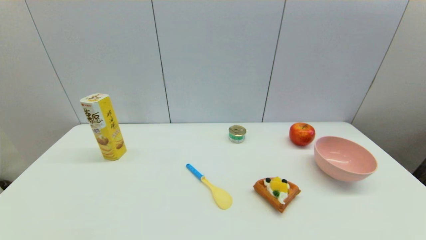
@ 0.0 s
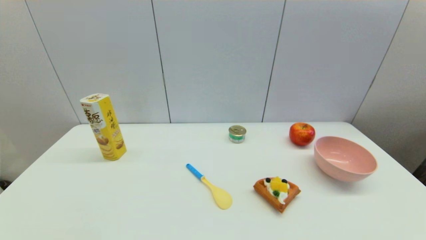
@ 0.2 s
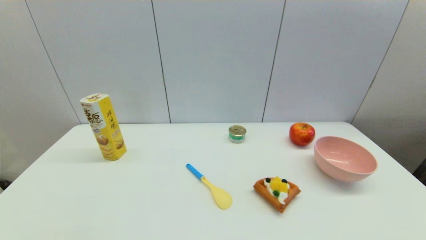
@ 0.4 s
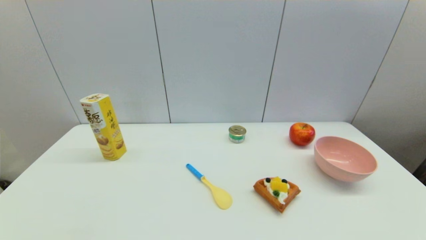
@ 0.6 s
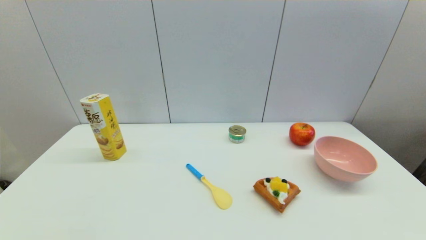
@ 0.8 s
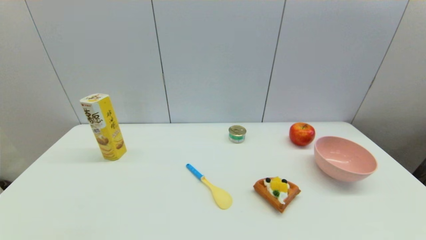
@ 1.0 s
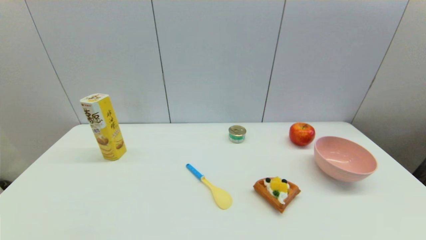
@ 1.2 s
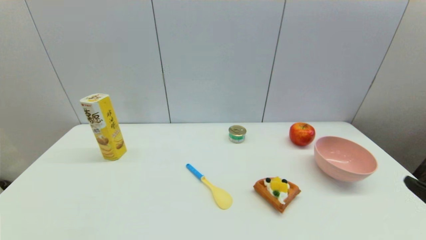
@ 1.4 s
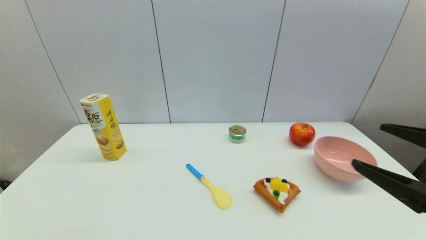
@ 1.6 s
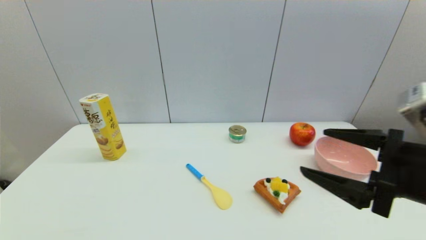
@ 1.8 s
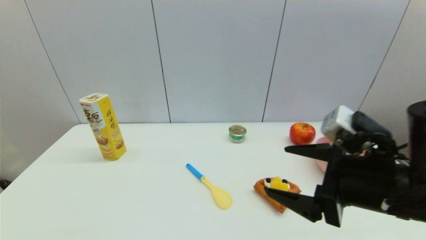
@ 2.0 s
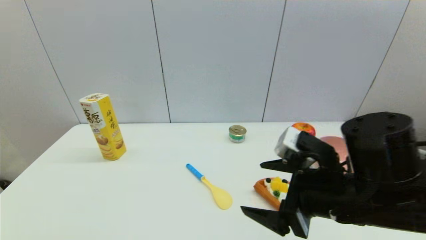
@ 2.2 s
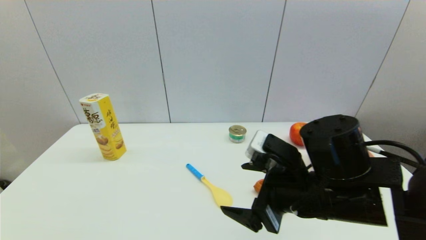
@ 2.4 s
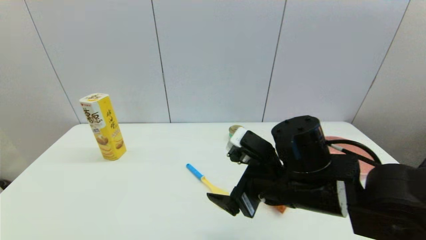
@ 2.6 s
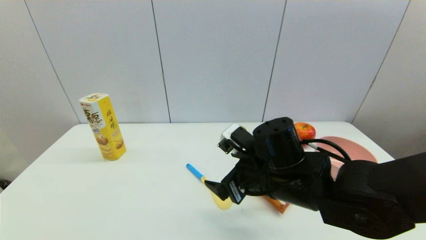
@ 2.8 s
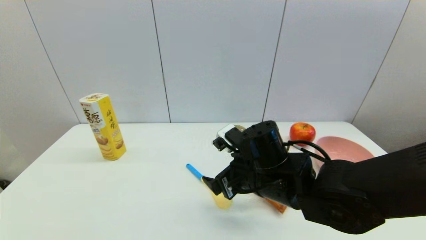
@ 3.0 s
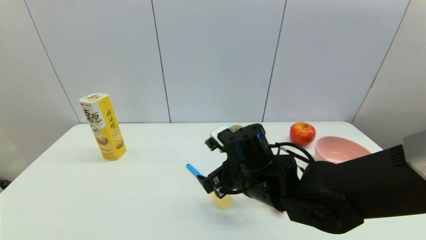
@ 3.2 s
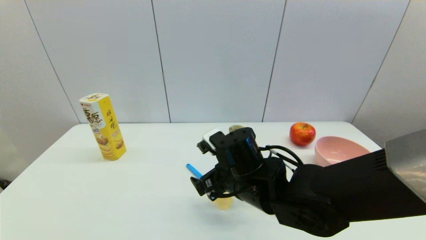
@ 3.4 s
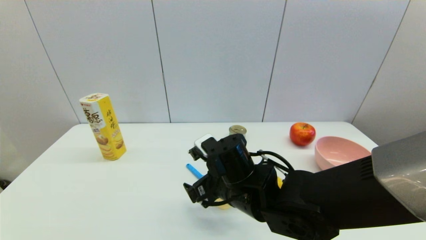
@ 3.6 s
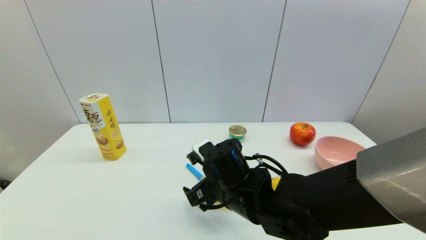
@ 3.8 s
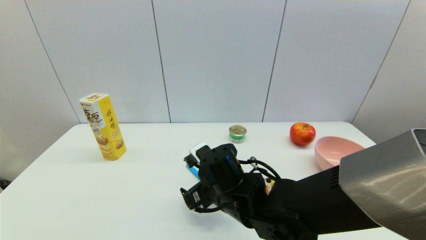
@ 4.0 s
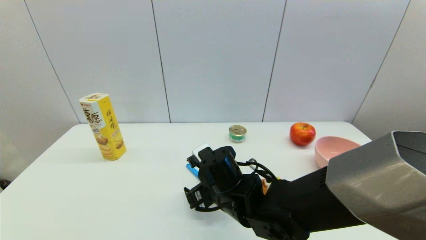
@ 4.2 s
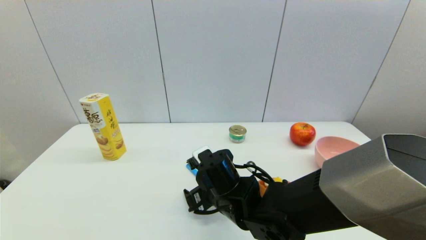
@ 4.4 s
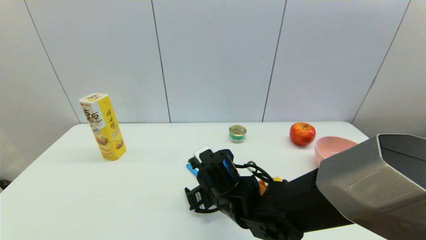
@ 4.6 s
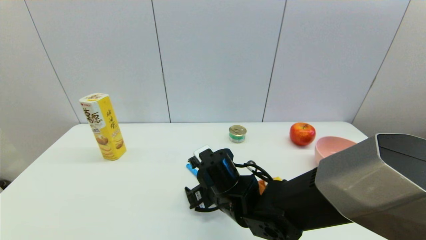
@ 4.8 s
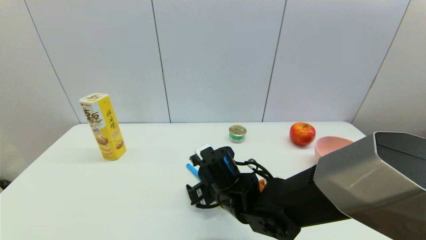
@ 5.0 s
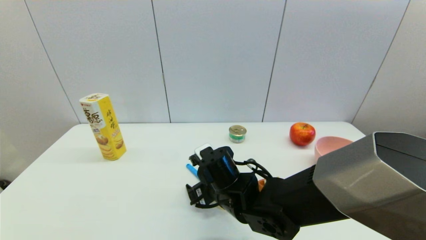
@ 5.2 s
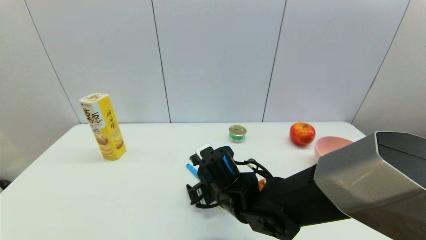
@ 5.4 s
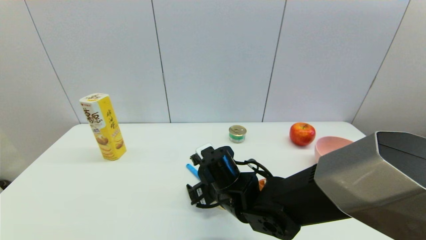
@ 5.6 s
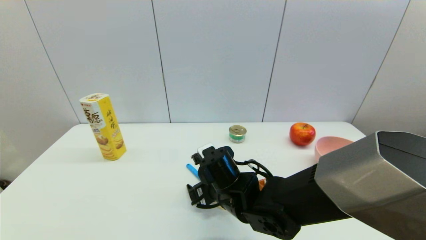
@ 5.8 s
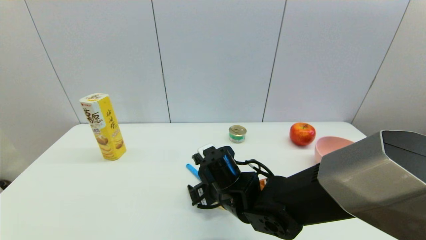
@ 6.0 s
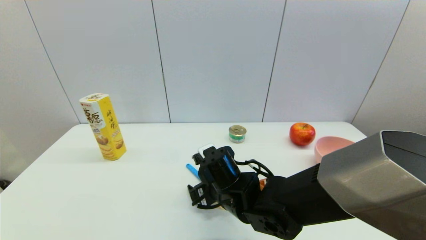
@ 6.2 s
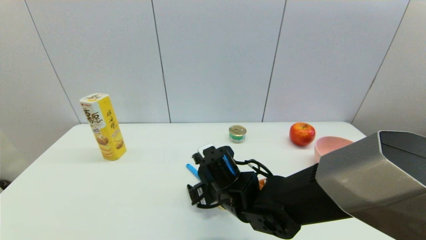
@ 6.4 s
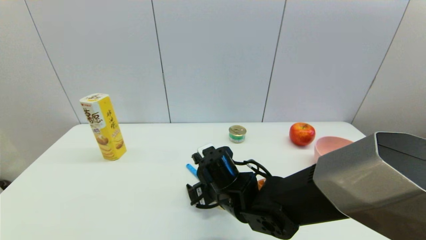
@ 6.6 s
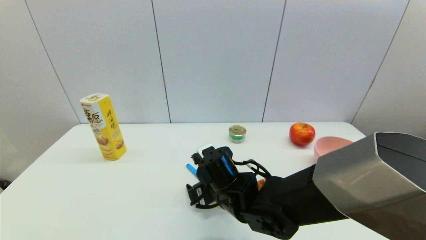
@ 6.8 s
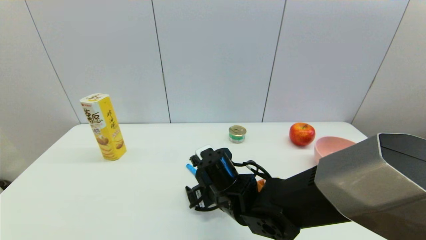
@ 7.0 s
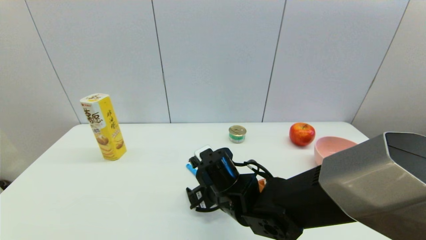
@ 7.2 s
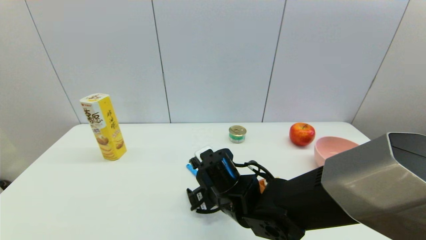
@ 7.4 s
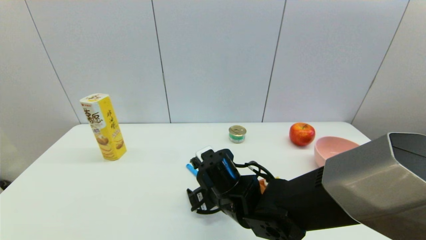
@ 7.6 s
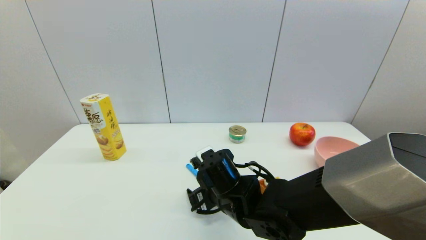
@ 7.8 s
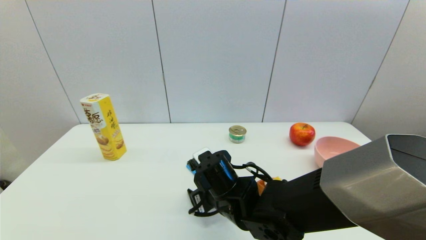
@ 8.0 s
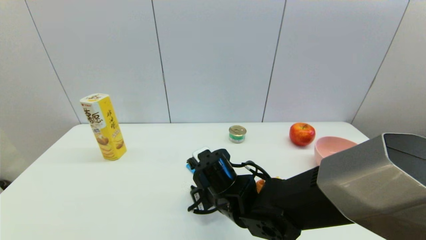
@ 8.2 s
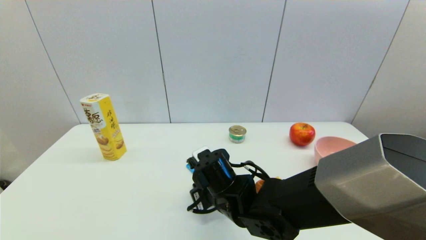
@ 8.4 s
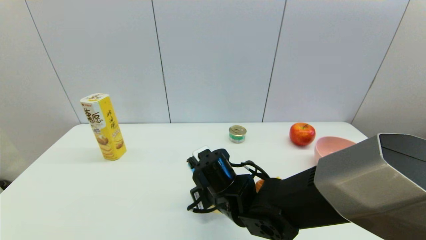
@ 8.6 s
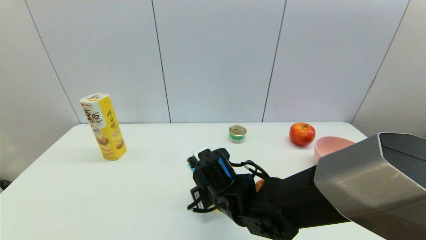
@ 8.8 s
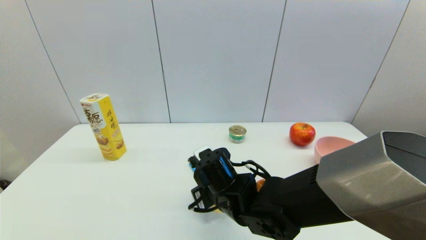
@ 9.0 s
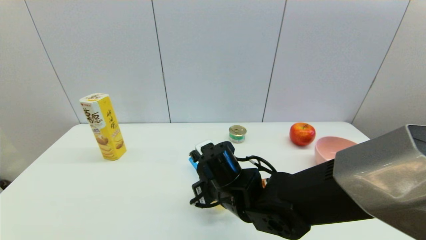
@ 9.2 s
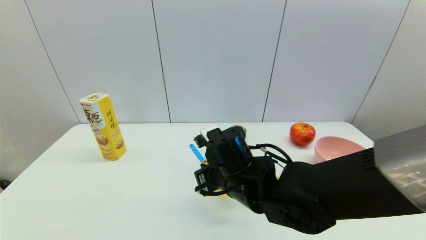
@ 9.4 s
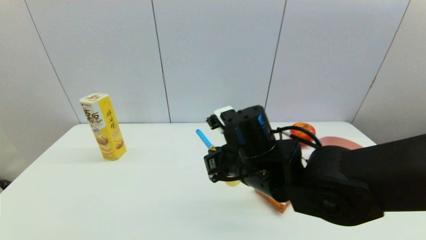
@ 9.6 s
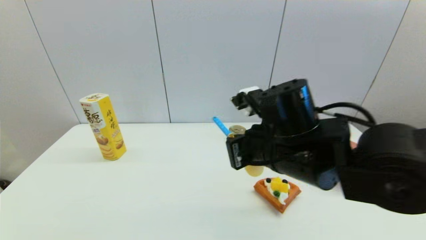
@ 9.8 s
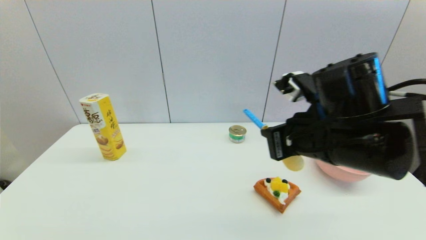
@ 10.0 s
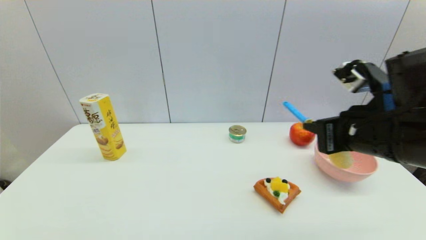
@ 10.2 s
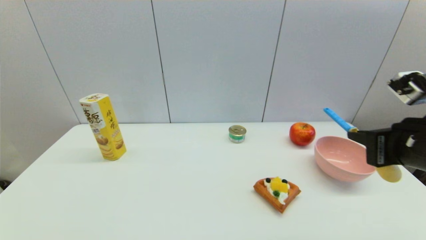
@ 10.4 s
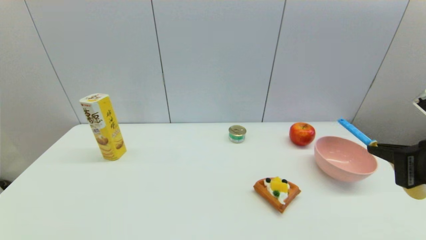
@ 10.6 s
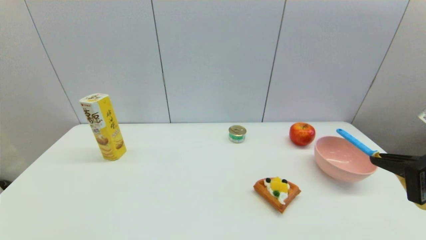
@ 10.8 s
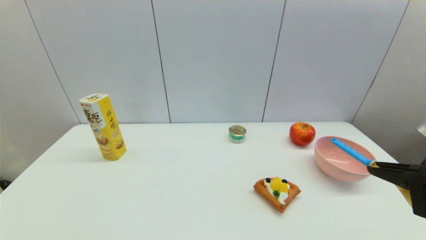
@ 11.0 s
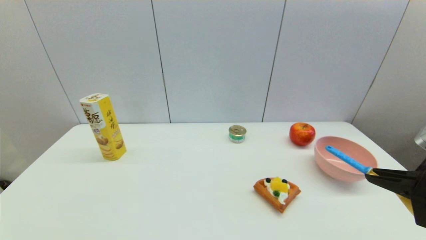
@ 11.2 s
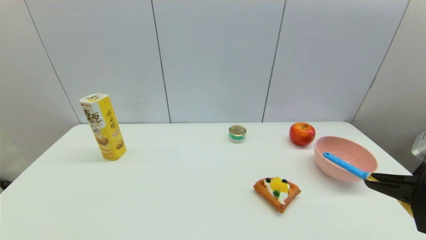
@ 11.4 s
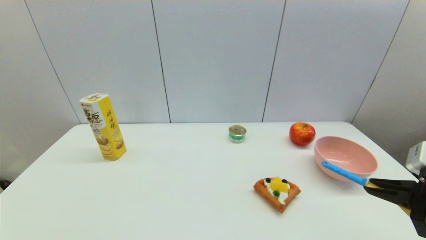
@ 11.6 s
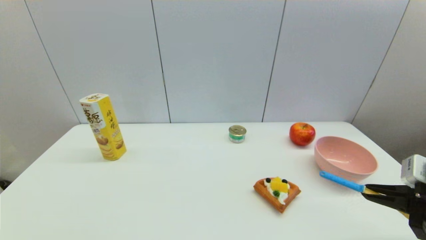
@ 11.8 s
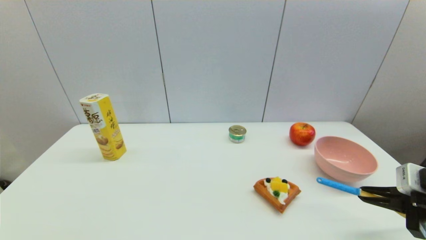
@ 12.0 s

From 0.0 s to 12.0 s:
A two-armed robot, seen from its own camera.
Step, from 1.4 s to 8.8 s: Grasp the spoon with right gripper.
From 0.0 s to 1.6 s: The right gripper moves upward and forward, some 20 cm.
From 1.6 s to 3.0 s: The right gripper goes roughly 25 cm to the left, forward and downward.
From 3.0 s to 4.4 s: The right gripper goes some 10 cm downward and to the left.
From 4.4 s to 6.0 s: The grippers stay close to where they were, moving slightly.
From 6.0 s to 7.6 s: The two grippers keep their place.
From 7.6 s to 9.0 s: The right gripper closes up.
From 9.0 s to 10.4 s: The right gripper heads to the right and upward, covering about 30 cm.
From 10.4 s to 12.0 s: The right gripper moves downward and to the right, roughly 15 cm.

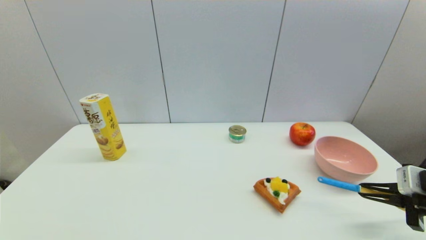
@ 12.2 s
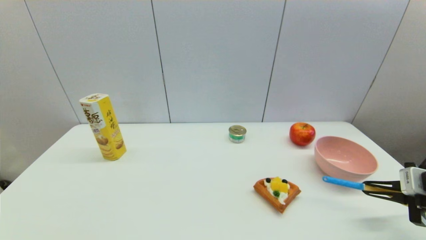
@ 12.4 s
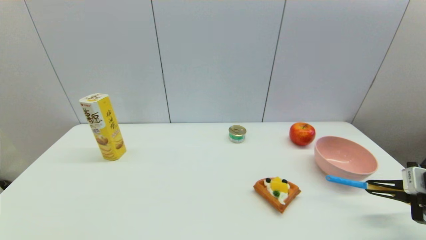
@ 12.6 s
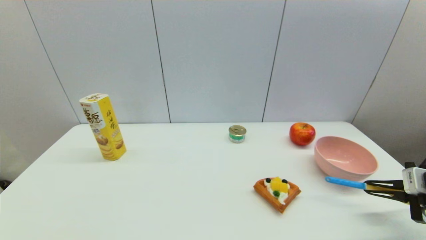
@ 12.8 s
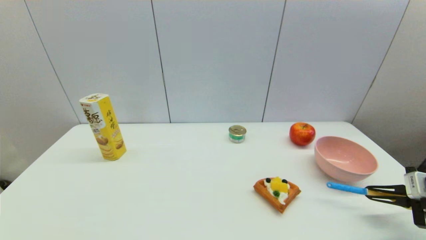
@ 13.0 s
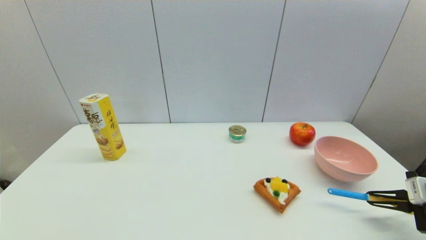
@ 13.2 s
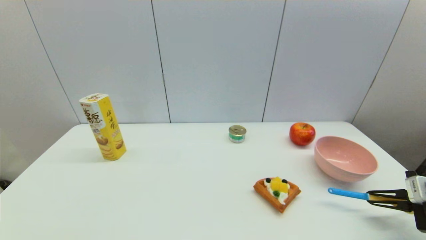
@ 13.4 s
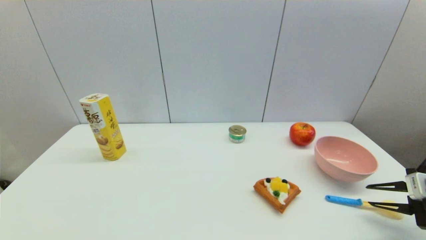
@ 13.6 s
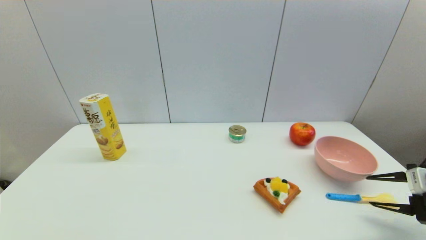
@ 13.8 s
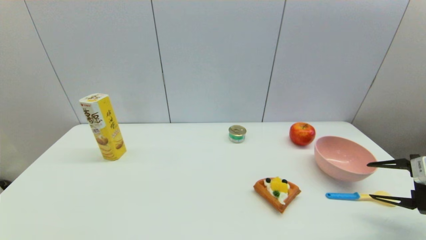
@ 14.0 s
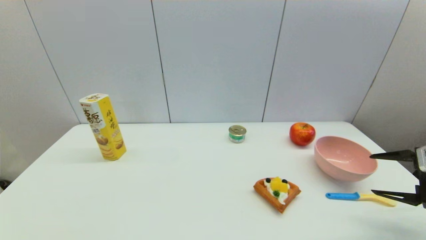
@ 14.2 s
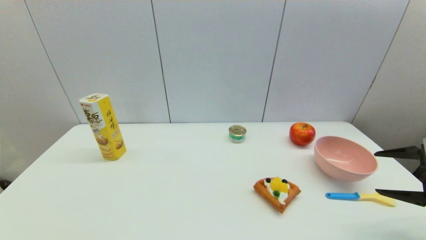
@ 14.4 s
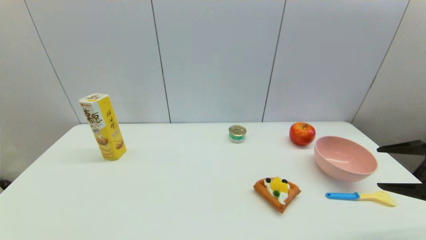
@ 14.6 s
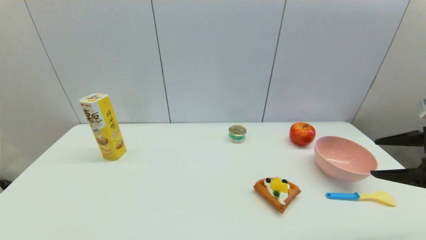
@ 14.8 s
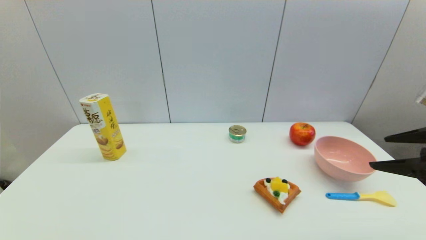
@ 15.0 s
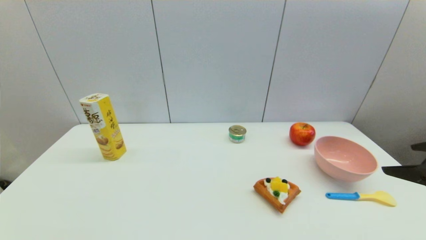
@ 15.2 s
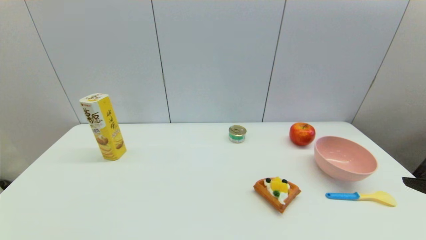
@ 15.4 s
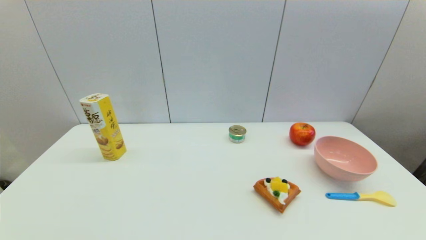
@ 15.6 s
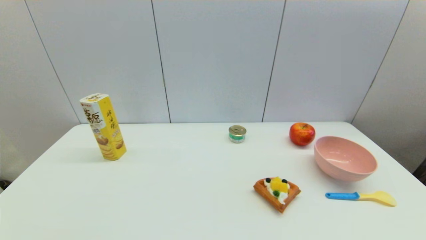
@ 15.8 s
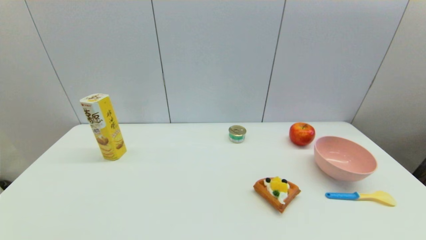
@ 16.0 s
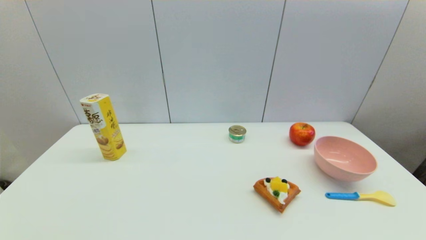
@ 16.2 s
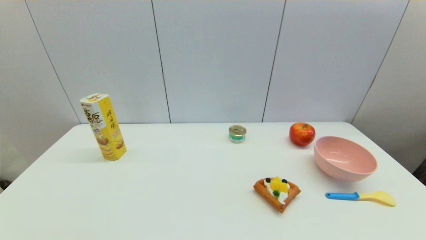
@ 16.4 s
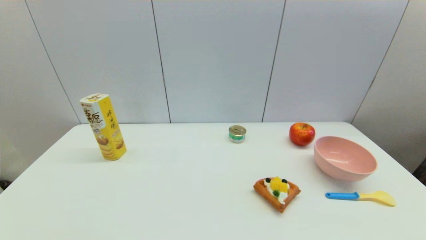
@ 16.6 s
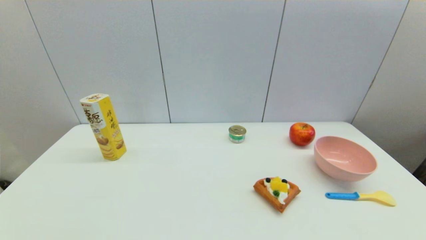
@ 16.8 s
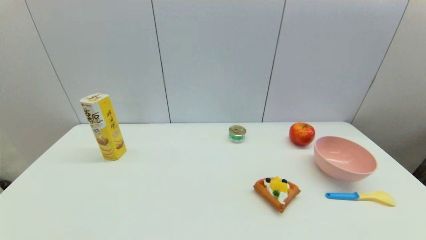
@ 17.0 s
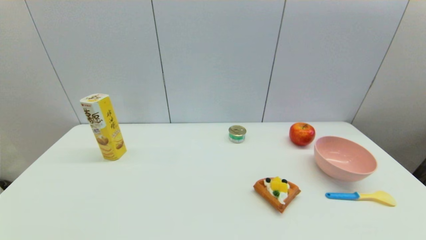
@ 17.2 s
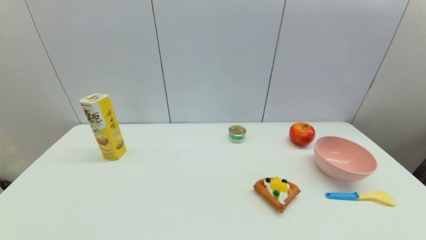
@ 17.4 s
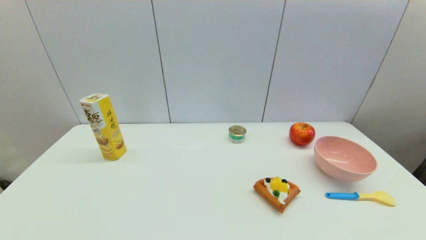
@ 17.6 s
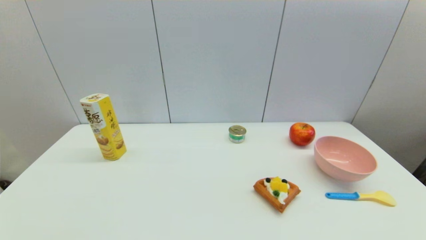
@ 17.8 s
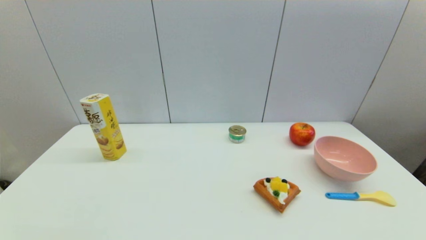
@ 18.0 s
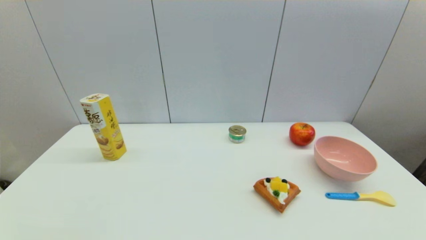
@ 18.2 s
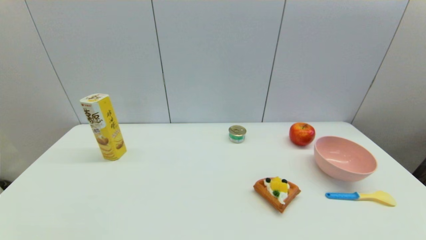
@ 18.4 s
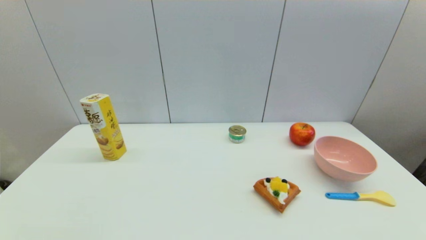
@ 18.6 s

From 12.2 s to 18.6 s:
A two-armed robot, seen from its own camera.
Step, from 12.2 s to 14.2 s: Place the spoon on the table with right gripper.
From 12.2 s to 13.8 s: The right gripper shifts by about 5 cm, and opens up.
From 13.8 s to 15.4 s: The right gripper moves upward, backward and to the left, some 20 cm, and opens its fingers.
